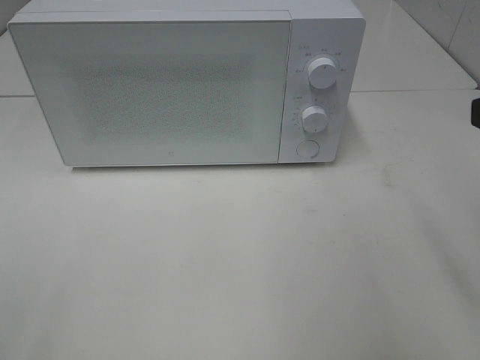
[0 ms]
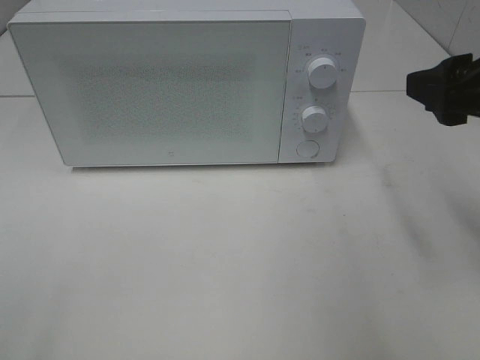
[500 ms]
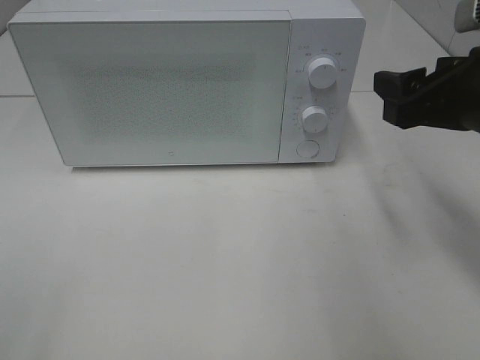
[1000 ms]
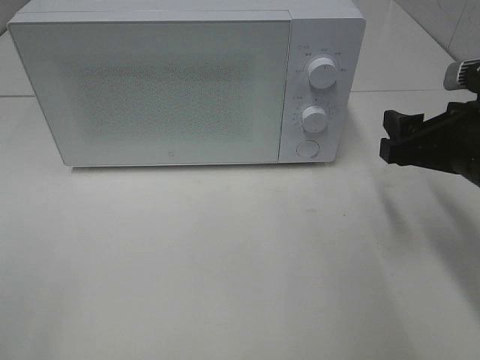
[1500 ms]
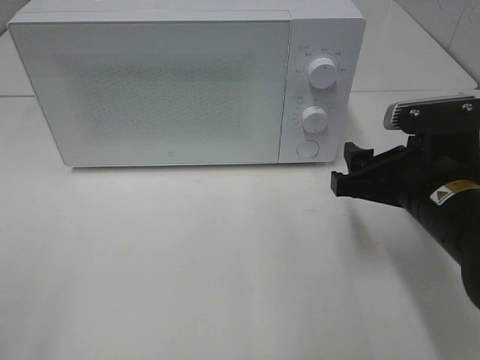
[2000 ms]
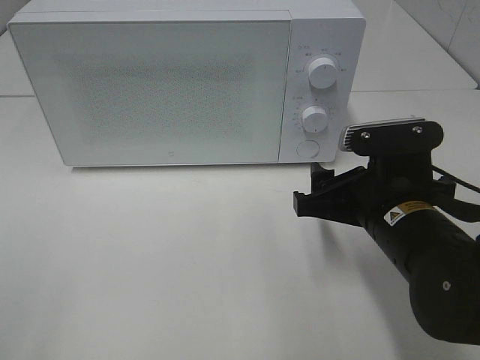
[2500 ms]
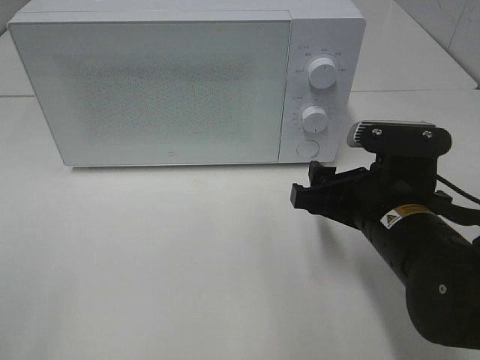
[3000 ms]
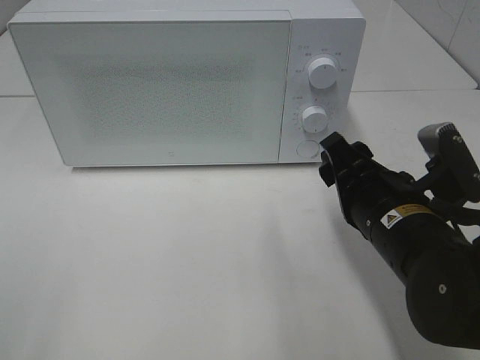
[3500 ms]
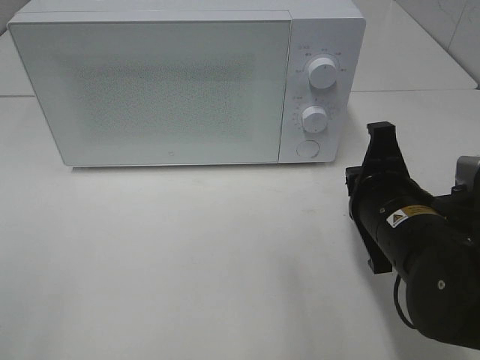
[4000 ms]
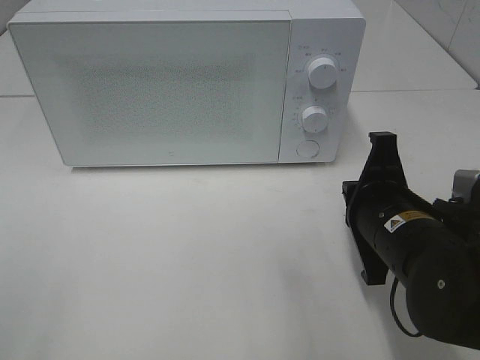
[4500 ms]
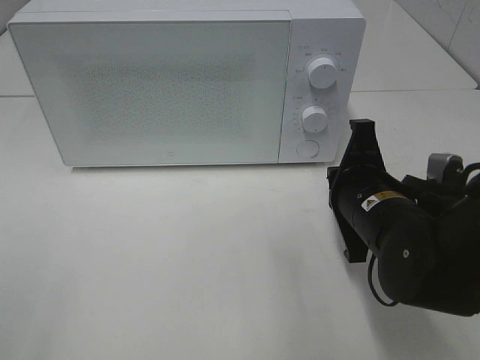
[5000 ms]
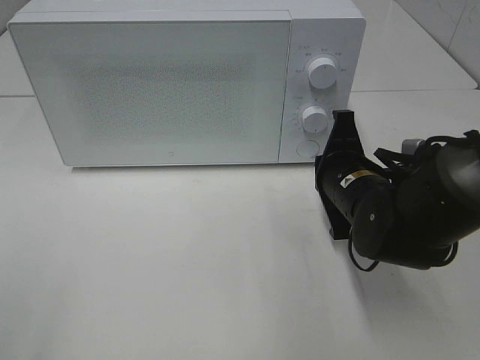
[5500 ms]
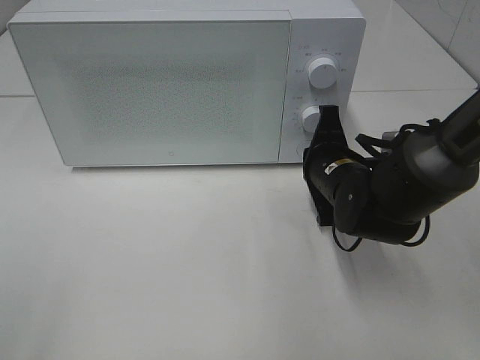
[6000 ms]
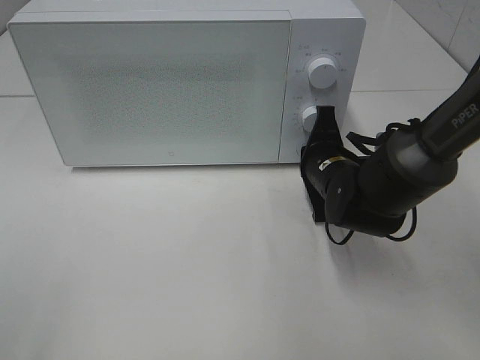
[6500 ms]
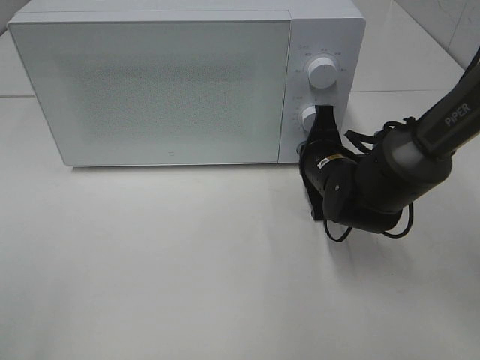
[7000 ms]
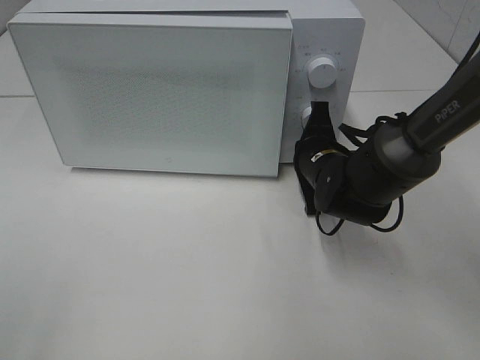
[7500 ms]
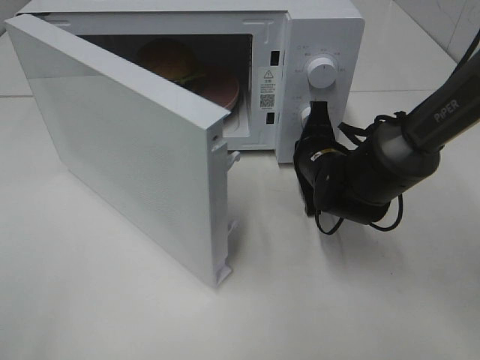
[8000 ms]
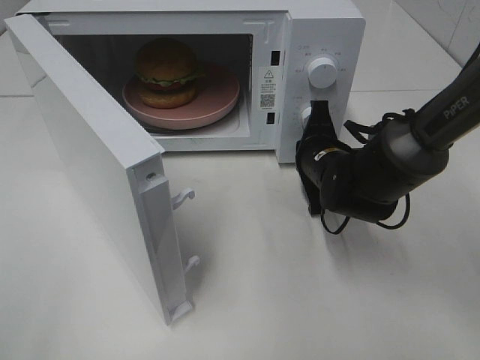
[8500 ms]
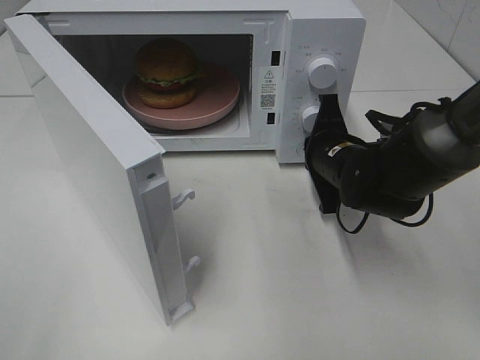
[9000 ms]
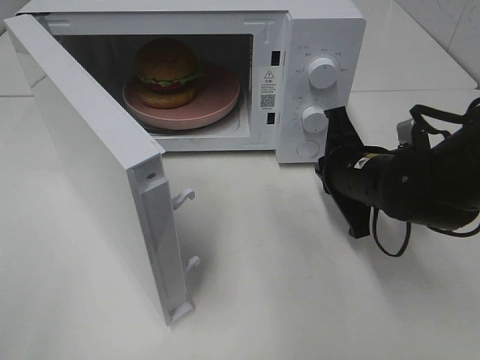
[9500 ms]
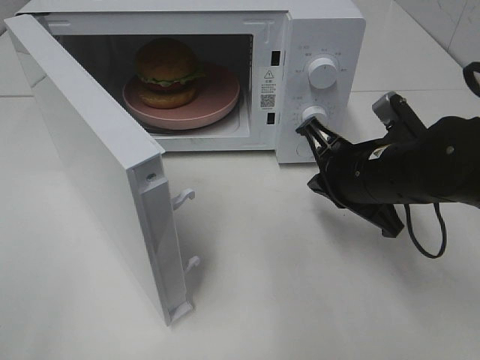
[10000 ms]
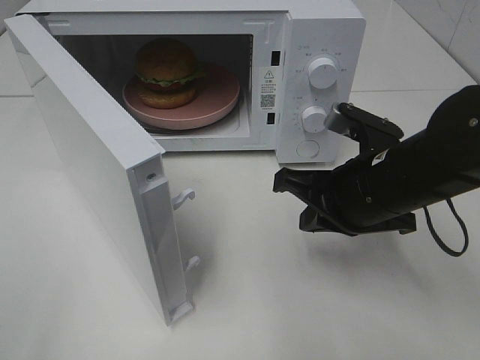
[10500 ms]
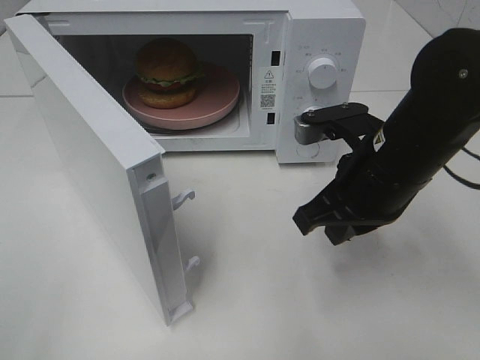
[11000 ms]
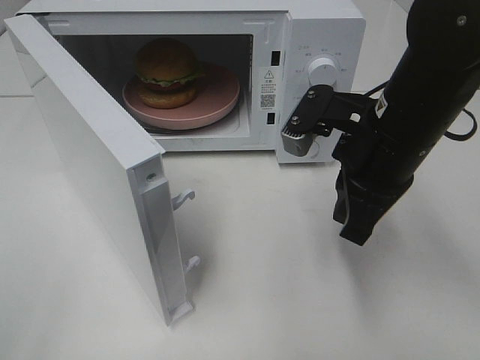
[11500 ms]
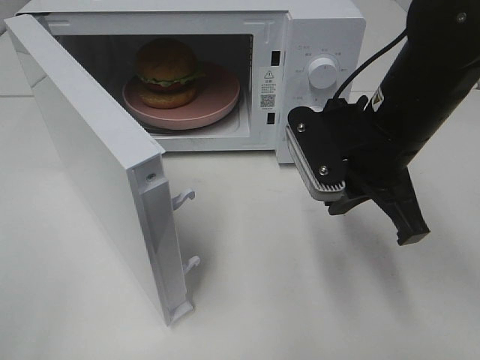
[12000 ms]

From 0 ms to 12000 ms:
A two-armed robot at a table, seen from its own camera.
Task of the whole recording: Heat the burger.
Step, from 0 ms to 9000 ms: Right hand: press the switch.
From 0 ms to 2000 ms: The right gripper travels downward, forward and to the left by about 20 cm.
From 2000 ms to 4000 ms: The right gripper closes its fingers.
From 4000 ms to 6000 ms: The right gripper heads forward, covering approximately 10 cm.
From 8000 ms to 10000 ms: The right gripper moves backward and upward, roughly 10 cm.
From 10000 ms to 12000 ms: The right gripper moves upward, approximately 5 cm.

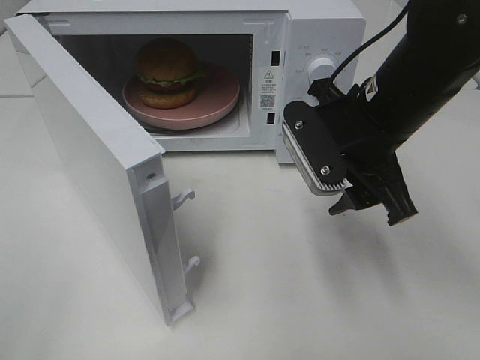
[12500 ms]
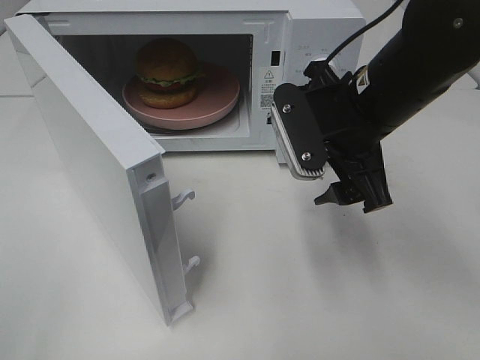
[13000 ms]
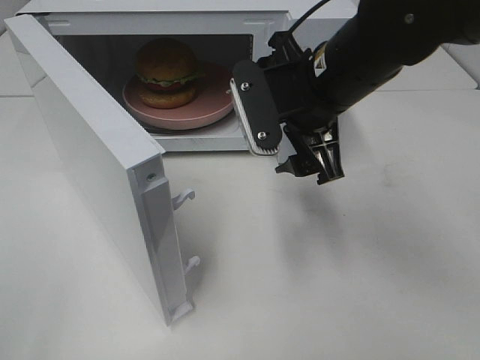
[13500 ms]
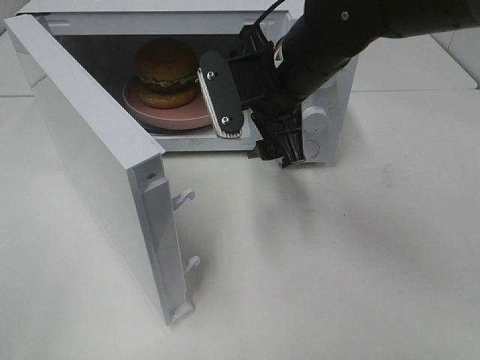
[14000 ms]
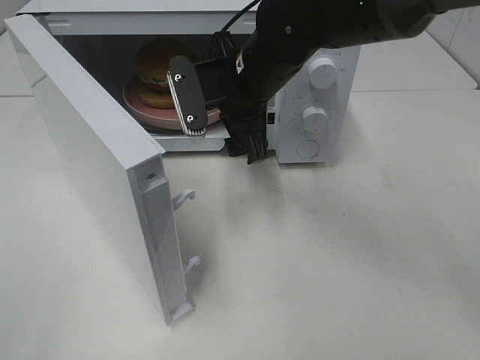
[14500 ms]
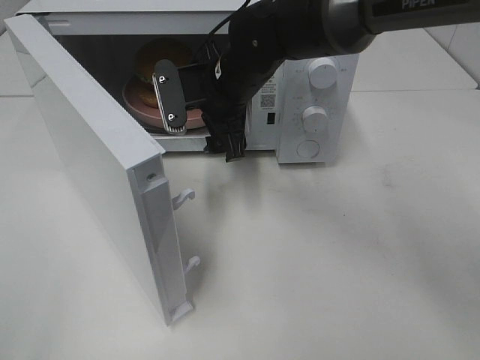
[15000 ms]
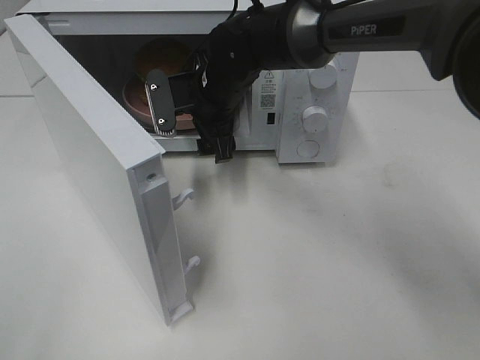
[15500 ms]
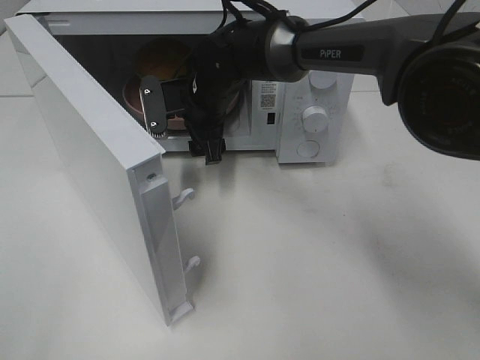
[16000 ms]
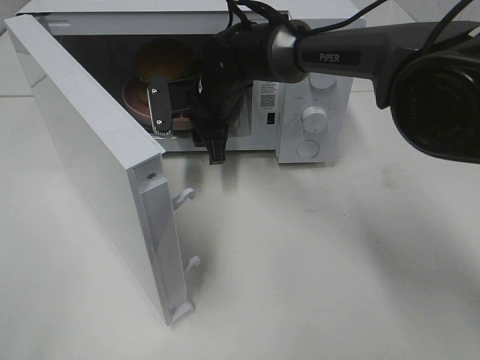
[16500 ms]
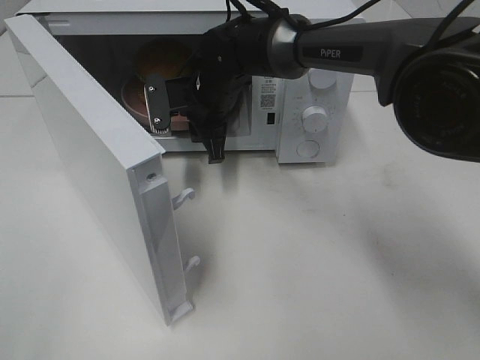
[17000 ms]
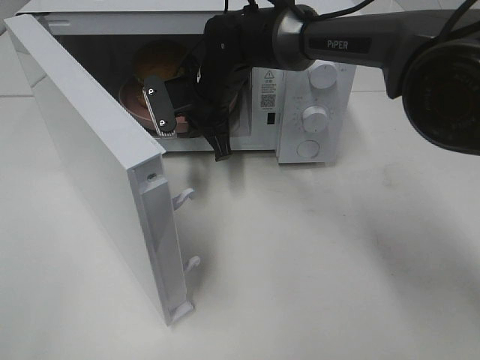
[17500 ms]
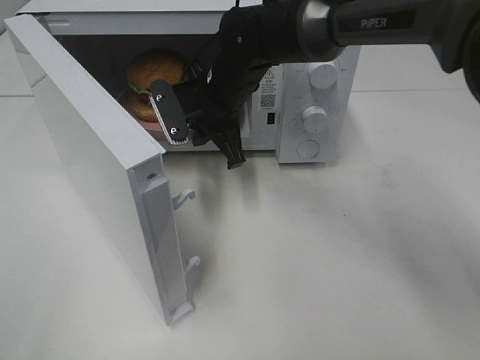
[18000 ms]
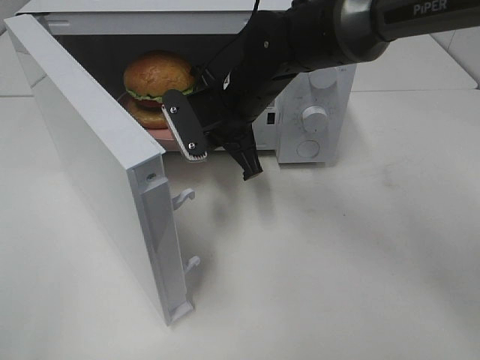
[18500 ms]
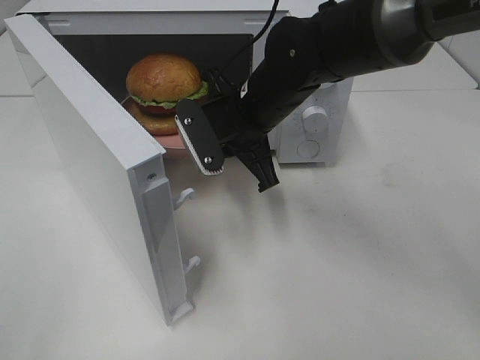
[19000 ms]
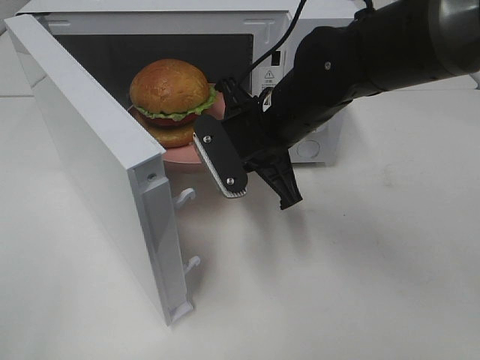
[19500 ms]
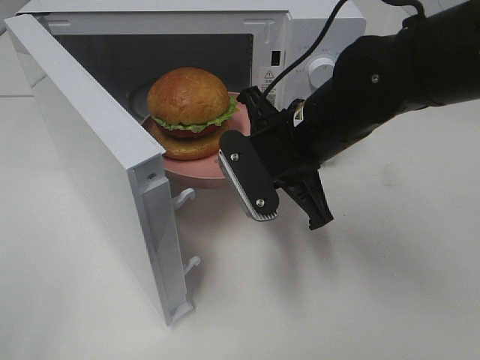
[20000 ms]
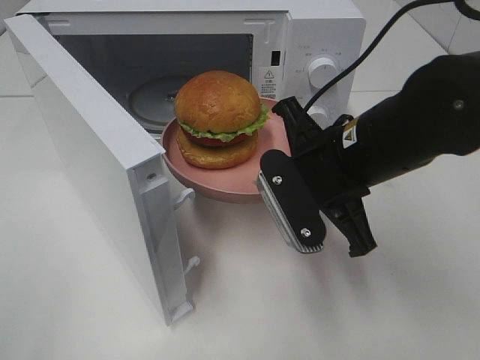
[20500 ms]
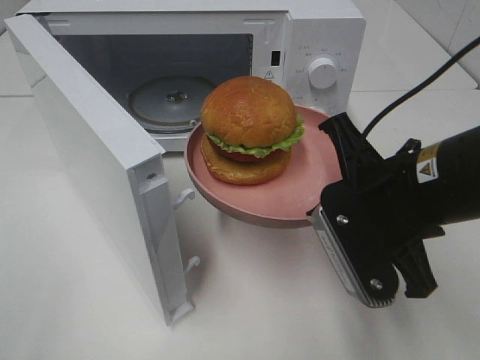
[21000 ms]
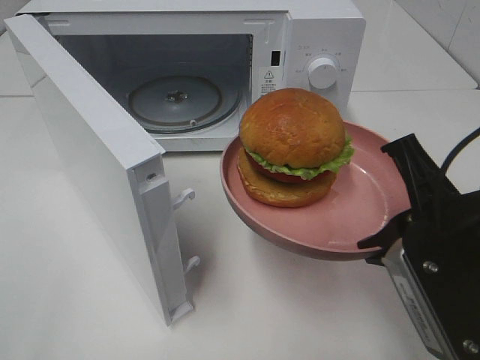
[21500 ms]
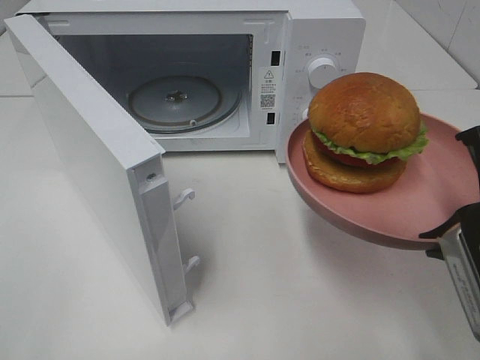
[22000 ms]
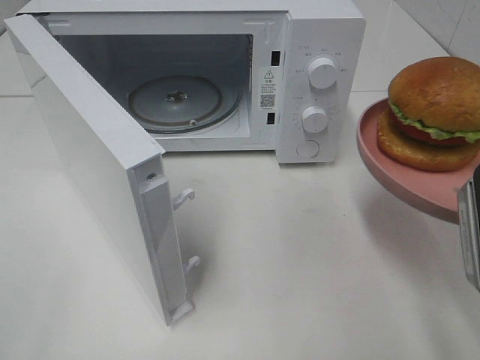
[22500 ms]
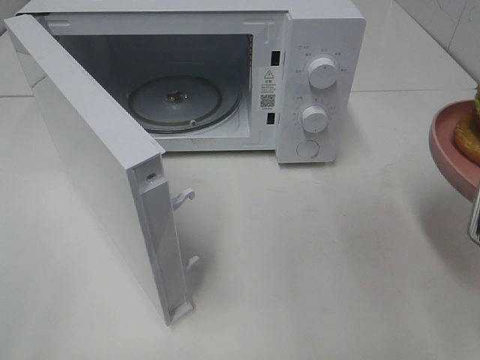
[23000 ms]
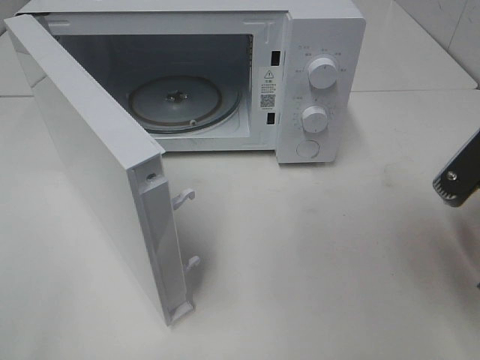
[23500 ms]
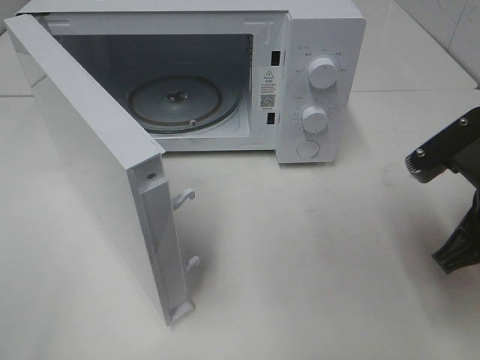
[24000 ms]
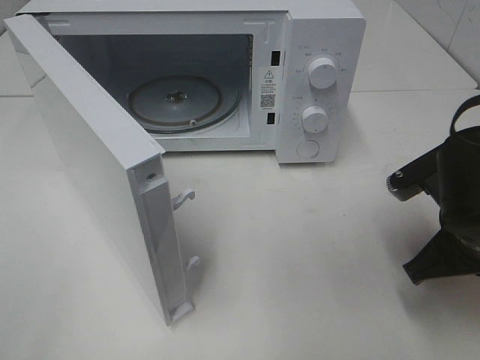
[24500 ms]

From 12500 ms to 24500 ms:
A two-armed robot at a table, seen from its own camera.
Task of the whole recording: Heat the burger.
Step, from 12500 ms to 17000 ms: Right hand: grab the plate with the hamburger.
From 12500 ms to 14500 ms: The right gripper heads to the left and forward, covering approximately 15 cm.
From 14500 ms to 16500 ms: The right gripper heads forward and downward, covering some 10 cm, and closes its fingers.
From 16500 ms to 18500 ms: The right gripper moves backward, about 5 cm, and closes.
From 18500 ms to 20500 ms: The right gripper goes roughly 15 cm backward and to the right.
From 20500 ms to 22500 ms: The right gripper travels to the right and backward by approximately 15 cm.
From 22500 ms to 24500 ms: The right gripper heads downward and forward, covering about 10 cm.

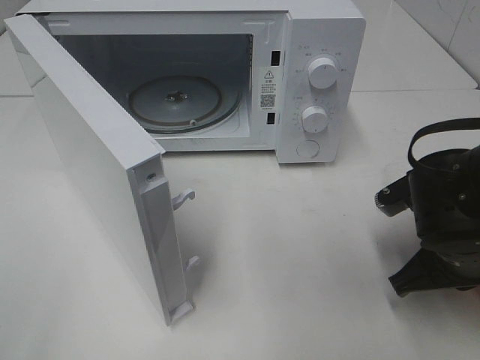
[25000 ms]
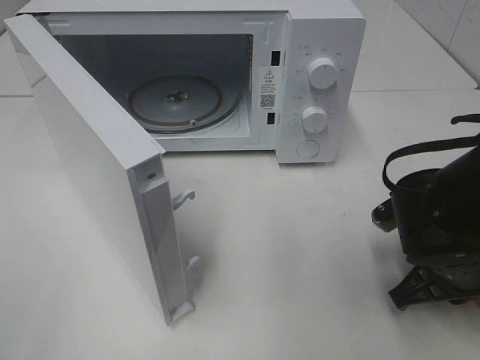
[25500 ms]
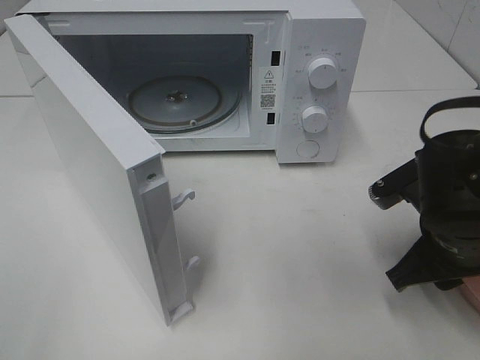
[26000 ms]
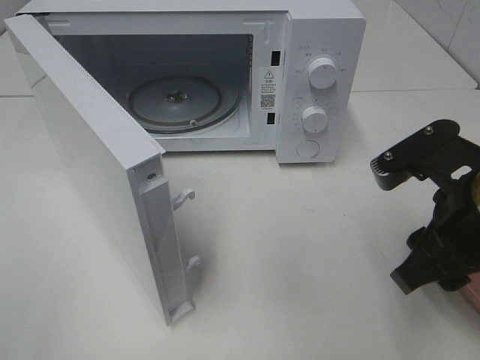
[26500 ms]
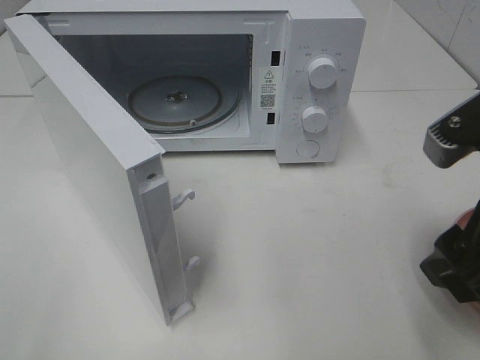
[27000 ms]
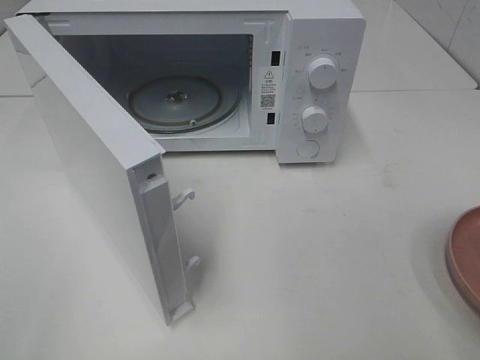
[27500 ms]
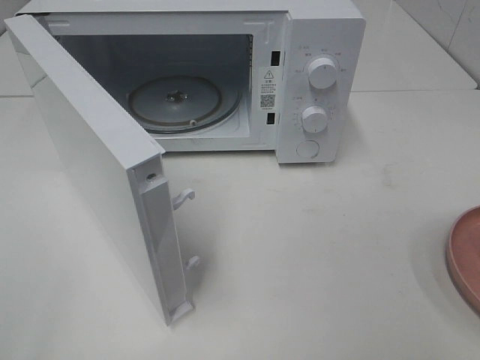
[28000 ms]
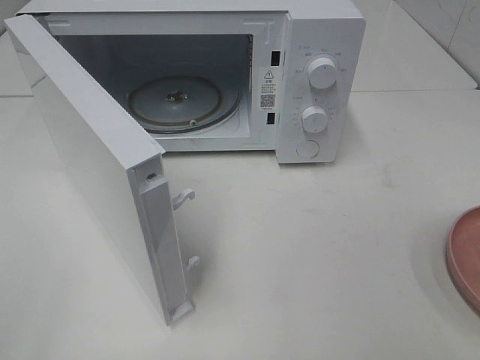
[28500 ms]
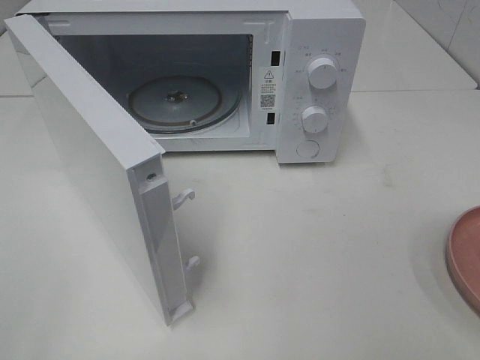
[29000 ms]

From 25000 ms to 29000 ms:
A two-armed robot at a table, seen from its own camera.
Task of the whole recording: Heat the burger.
From 25000 ms to 27000 ms: The right gripper shifts approximately 15 cm upward and backward, and opens up.
From 27000 ms to 29000 ms: The right gripper is displaced backward and to the right by approximately 15 cm.
